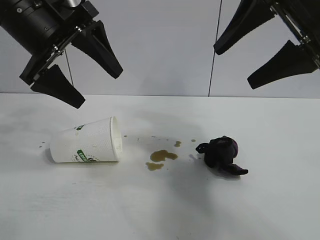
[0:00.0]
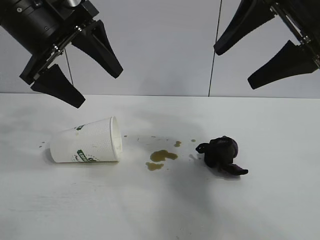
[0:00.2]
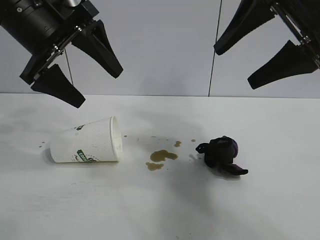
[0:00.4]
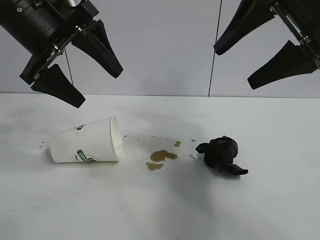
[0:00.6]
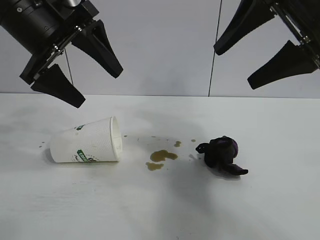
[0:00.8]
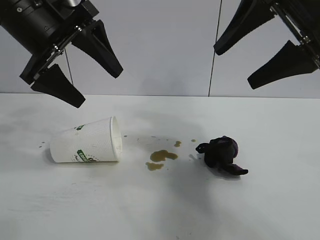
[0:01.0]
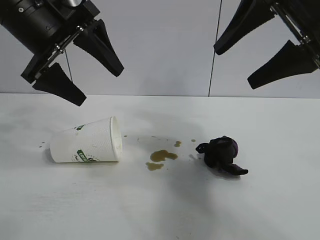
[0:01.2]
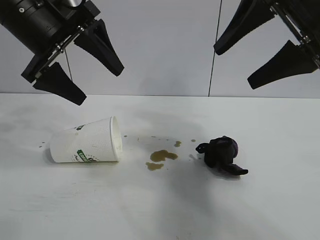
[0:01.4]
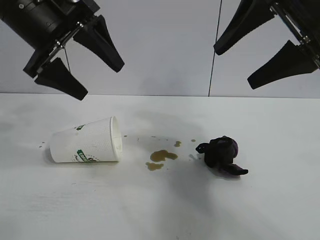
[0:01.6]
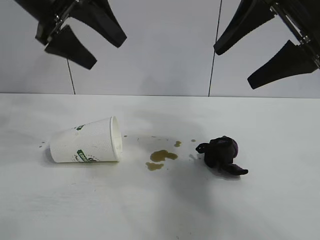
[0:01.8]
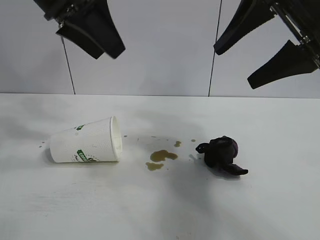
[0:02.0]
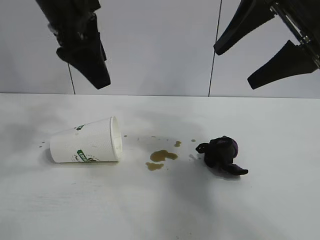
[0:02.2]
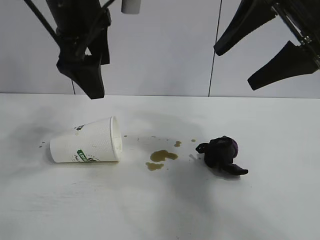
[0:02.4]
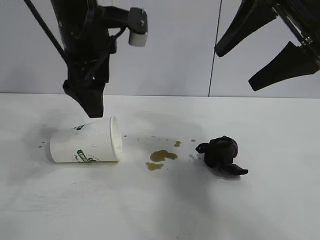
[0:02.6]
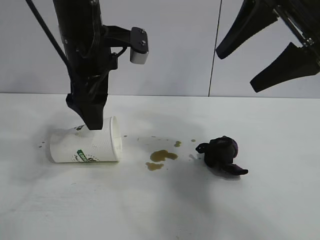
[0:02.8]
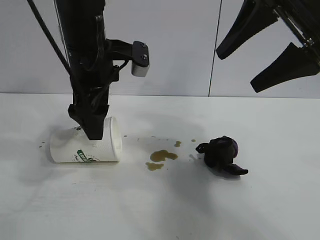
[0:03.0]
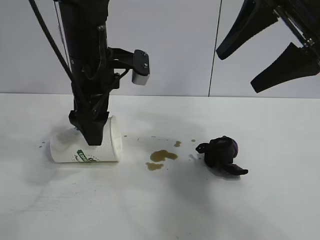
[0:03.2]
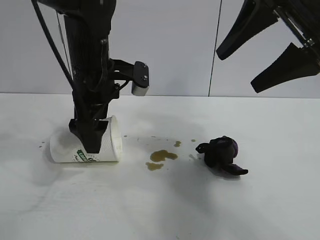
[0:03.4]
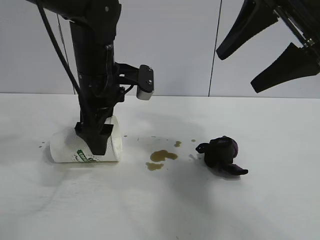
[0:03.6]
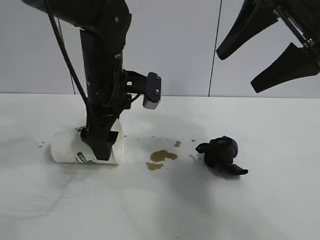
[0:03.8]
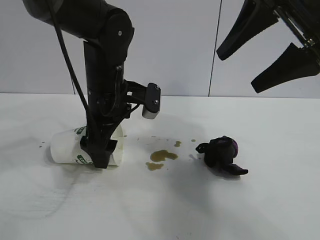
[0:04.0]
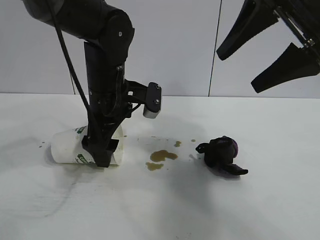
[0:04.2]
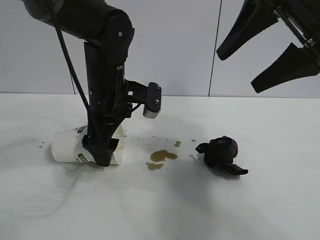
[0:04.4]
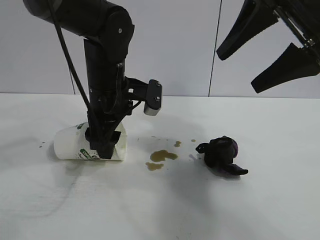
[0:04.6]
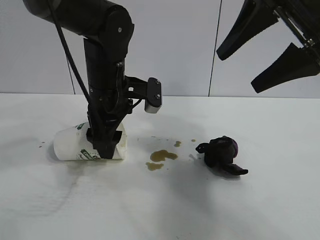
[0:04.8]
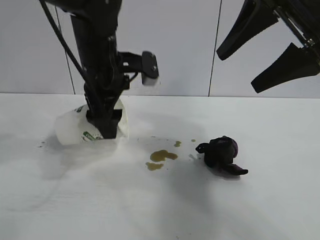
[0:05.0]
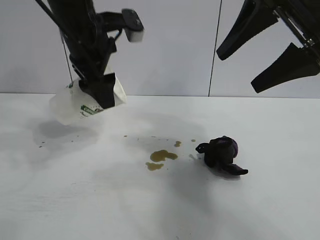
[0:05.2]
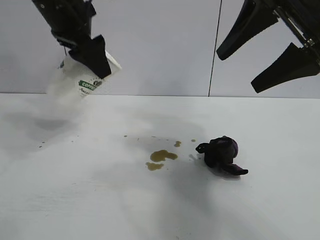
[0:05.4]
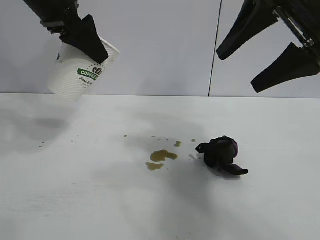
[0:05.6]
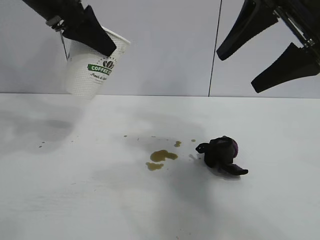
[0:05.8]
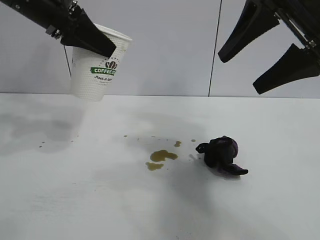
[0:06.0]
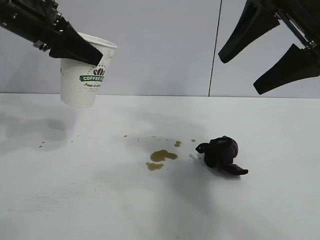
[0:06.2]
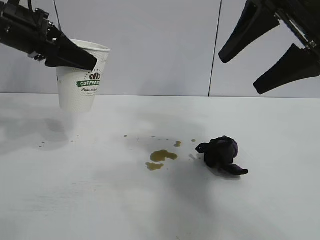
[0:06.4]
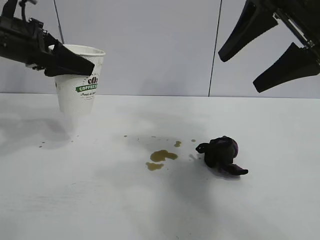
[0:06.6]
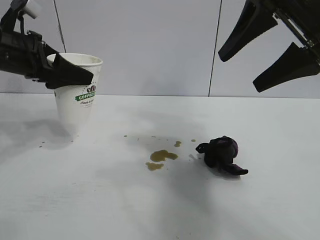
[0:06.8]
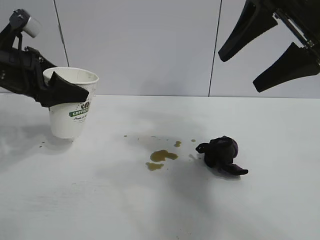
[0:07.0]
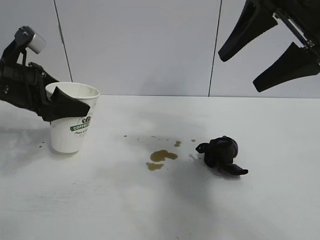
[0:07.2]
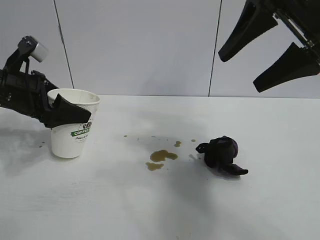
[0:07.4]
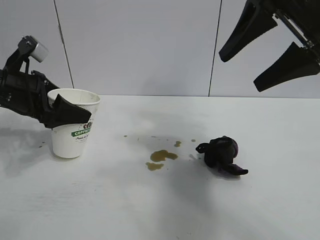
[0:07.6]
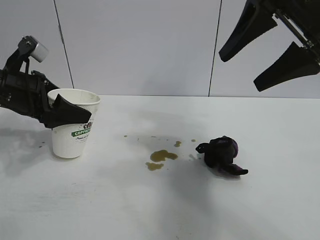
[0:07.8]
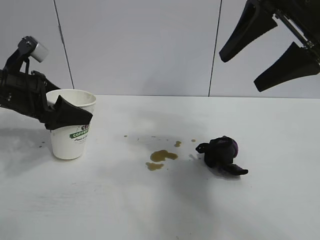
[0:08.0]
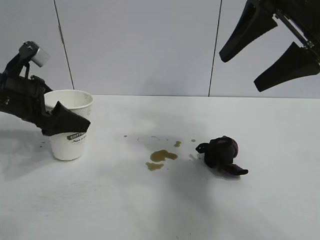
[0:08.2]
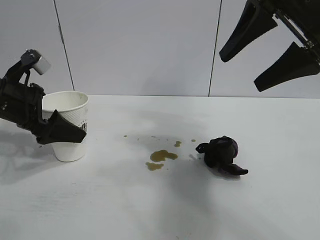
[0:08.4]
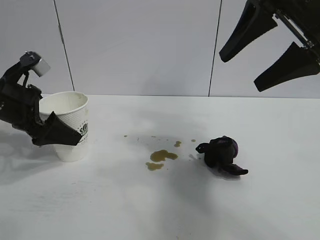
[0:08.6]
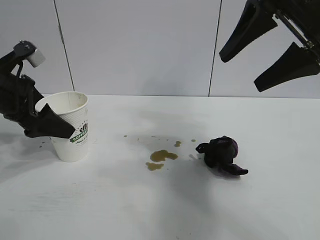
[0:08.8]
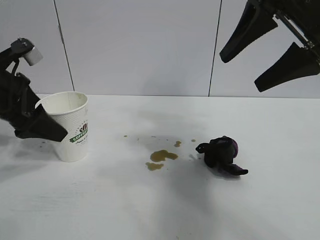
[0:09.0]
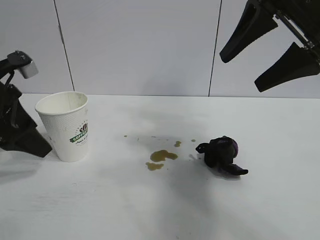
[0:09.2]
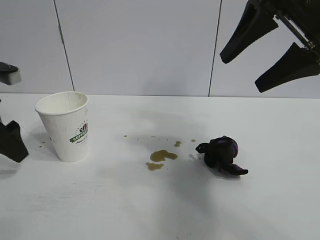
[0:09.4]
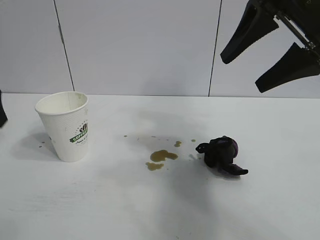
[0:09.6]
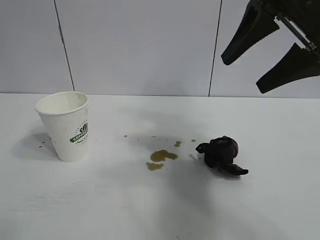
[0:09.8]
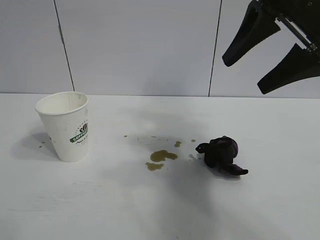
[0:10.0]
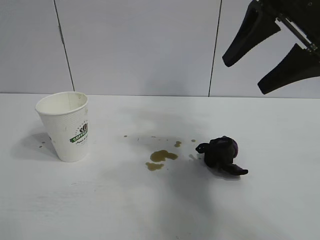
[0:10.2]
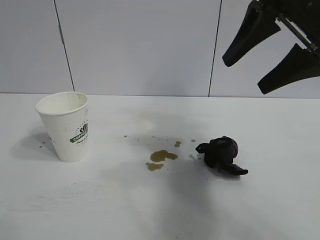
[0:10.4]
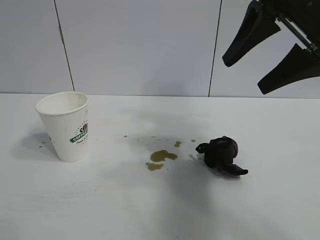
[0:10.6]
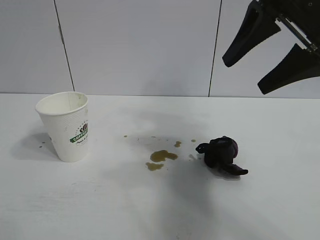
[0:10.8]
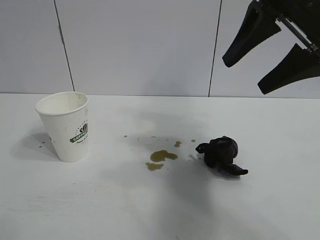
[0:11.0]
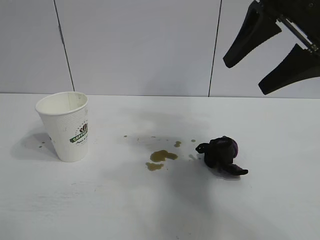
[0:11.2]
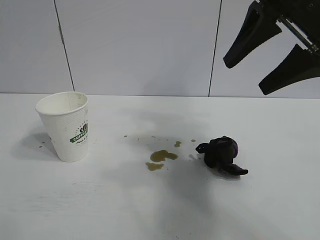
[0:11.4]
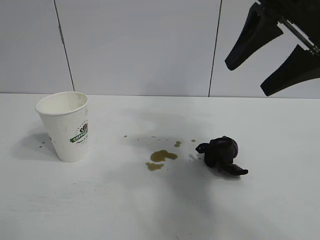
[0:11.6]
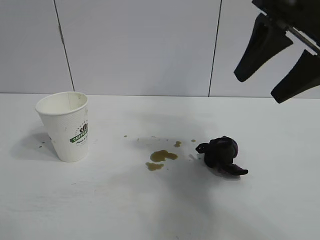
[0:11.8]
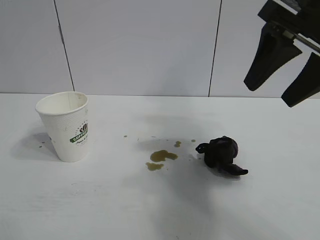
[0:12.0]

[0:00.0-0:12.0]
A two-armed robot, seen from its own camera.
Task of the whole recording: the left gripper pick up the fallen cup and place it upright, the right gripper grasp the black rag and wipe the stain on the table, the right gripper put the black rag back in its original position.
Step, 0:01.2 to 0:04.6: Grasp the paper cup with left gripper.
Step, 0:05.0 to 0:08.4: Stand the paper cup upright with left gripper.

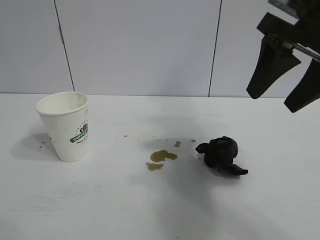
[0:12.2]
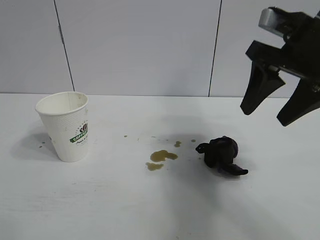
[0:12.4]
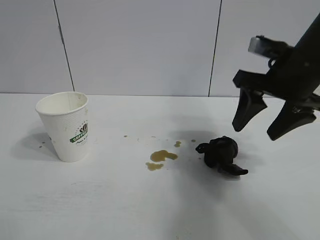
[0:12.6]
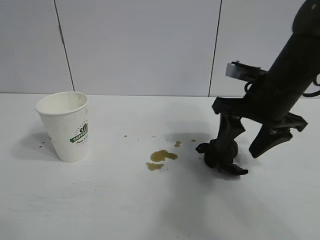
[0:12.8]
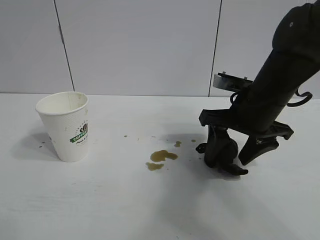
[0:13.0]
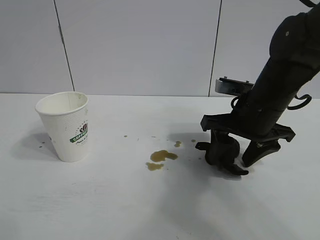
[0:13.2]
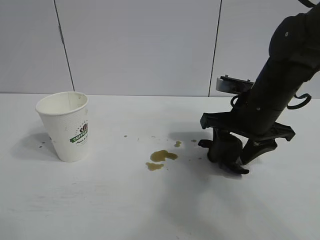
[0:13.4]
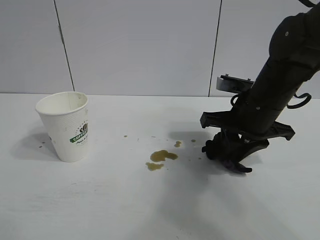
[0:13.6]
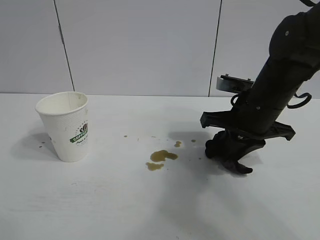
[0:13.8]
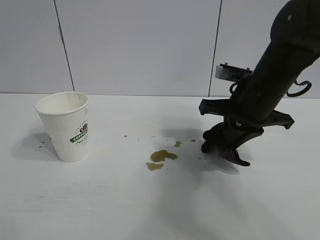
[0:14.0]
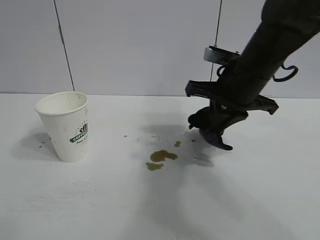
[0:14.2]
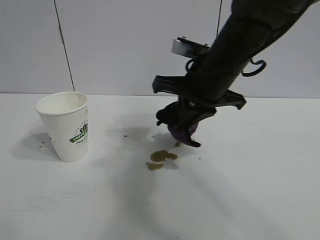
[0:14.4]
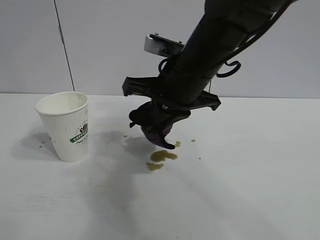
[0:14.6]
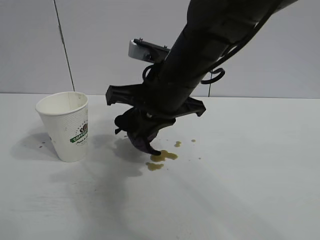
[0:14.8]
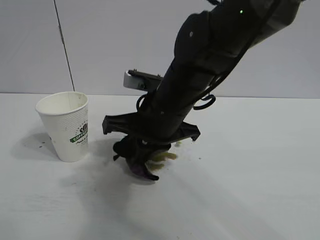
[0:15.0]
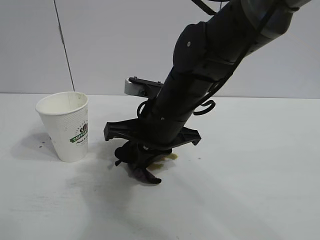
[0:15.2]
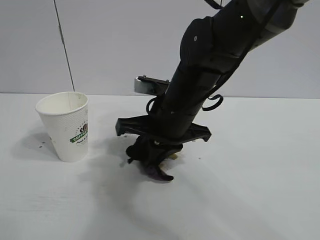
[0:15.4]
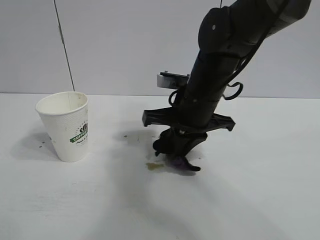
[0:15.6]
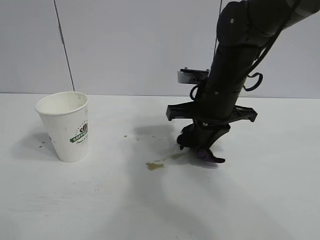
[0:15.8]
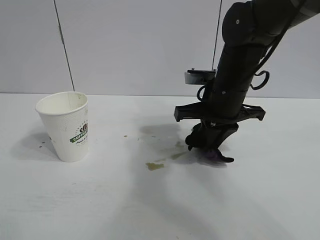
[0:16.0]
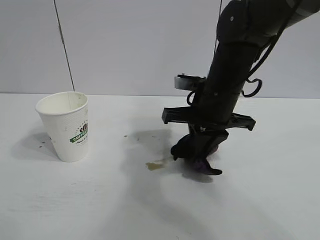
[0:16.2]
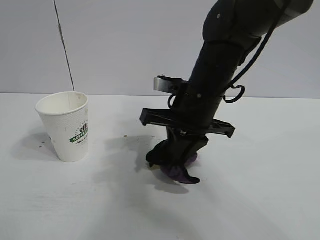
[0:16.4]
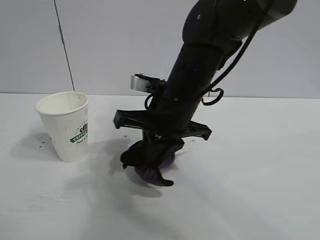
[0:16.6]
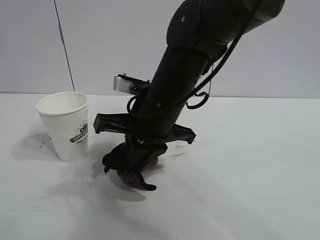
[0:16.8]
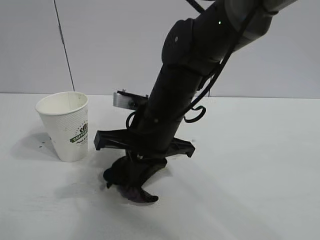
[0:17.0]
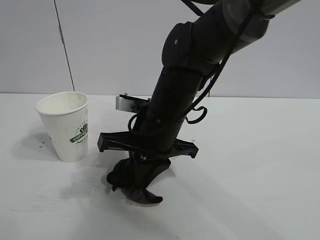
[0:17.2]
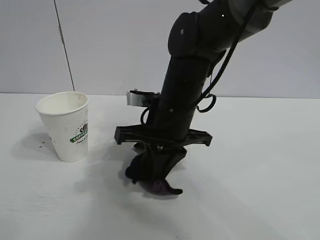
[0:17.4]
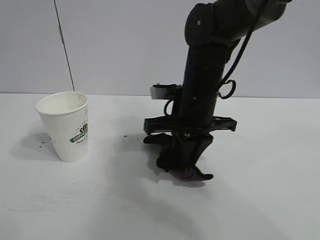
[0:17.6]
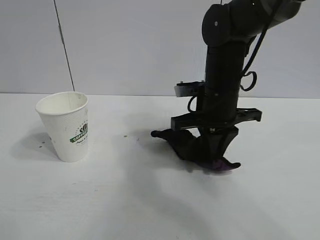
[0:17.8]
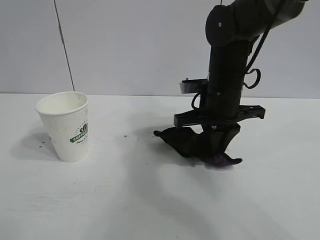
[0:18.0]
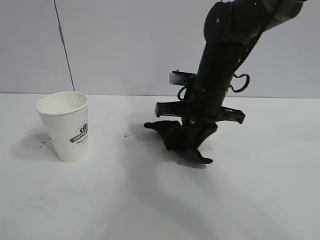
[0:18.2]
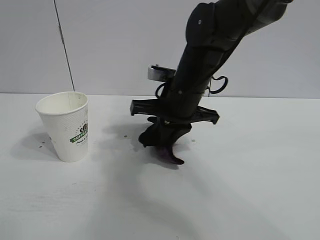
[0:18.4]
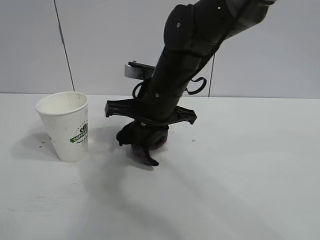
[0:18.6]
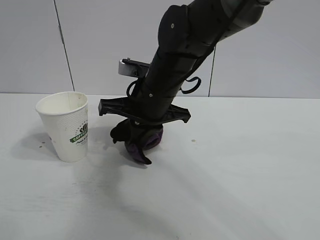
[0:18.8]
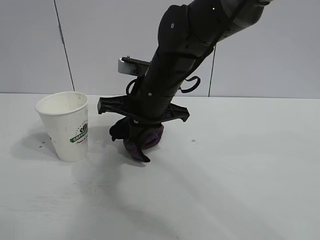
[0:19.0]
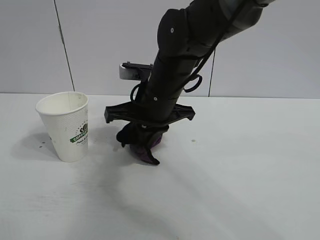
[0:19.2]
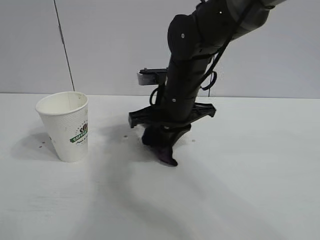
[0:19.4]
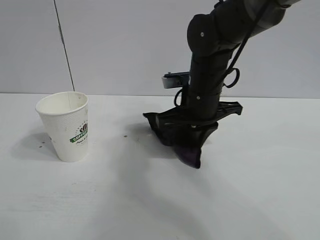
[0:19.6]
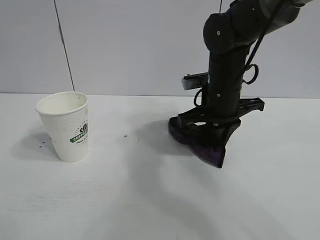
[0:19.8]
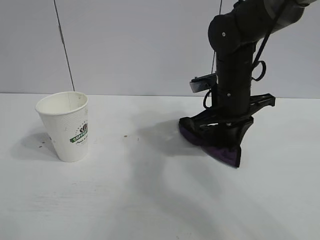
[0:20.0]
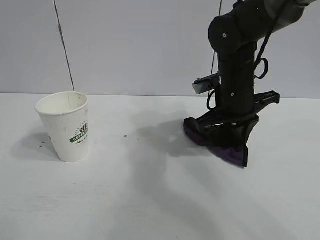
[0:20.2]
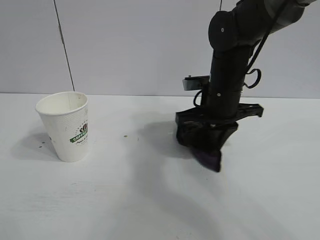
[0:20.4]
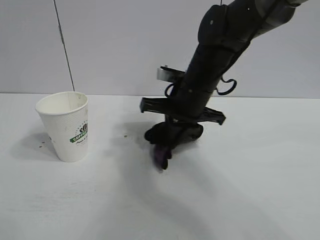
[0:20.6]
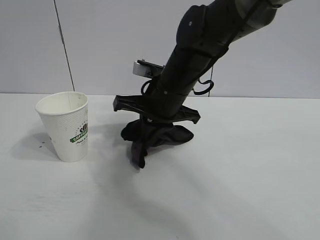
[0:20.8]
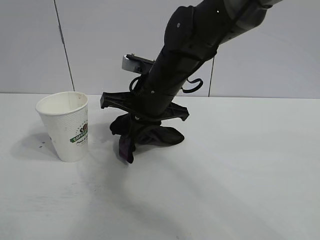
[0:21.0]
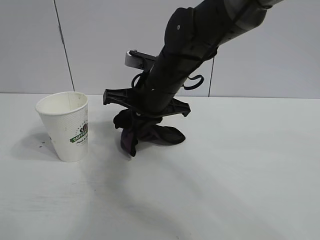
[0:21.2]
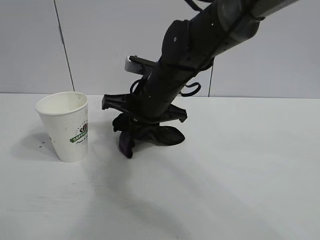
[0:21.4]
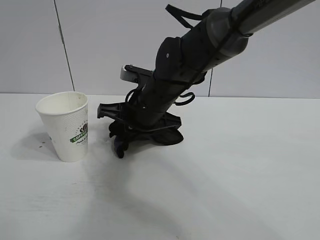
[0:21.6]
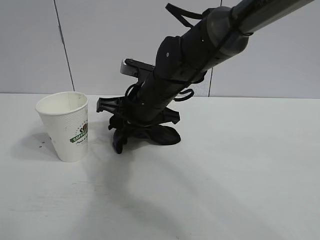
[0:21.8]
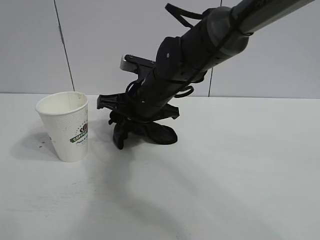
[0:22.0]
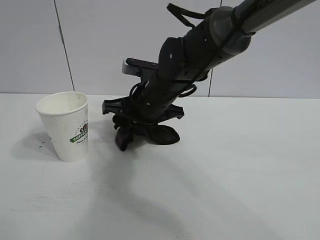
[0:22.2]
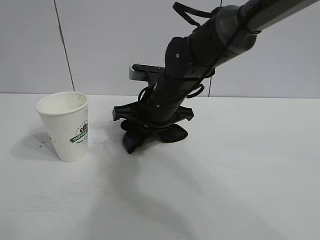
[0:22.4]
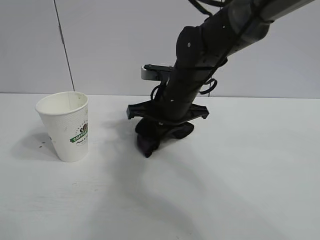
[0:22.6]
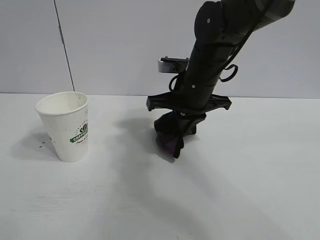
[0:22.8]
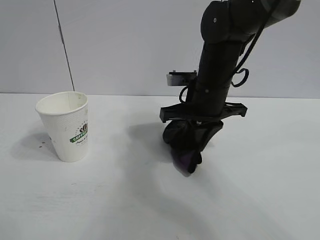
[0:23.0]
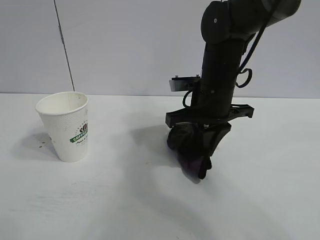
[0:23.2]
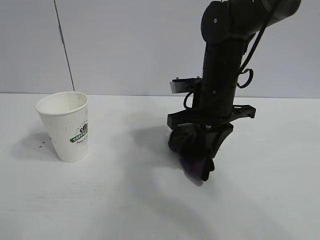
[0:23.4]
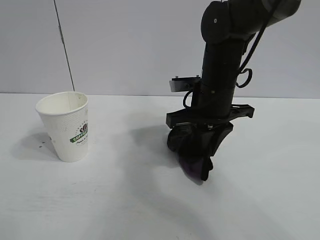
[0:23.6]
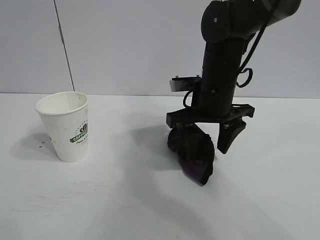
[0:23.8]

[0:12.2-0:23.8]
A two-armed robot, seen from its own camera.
Task of the whole recording: the left gripper pick up the fallen cup and place it upright, the right gripper grasp the black rag and wipe the stain on the table, the right gripper put the black rag back in its original position.
Step, 0:14.0 to 0:22.4: Wipe the stains off the table with the rag with right gripper.
Step, 0:22.6 to 0:23.6: Place the rag on the table with right gripper.
